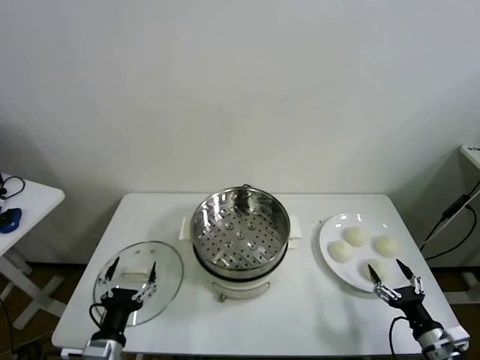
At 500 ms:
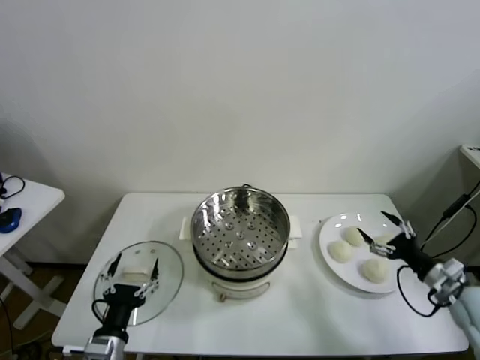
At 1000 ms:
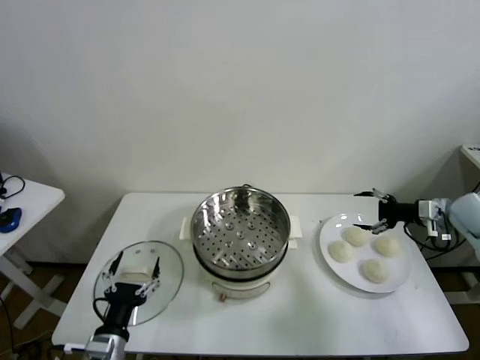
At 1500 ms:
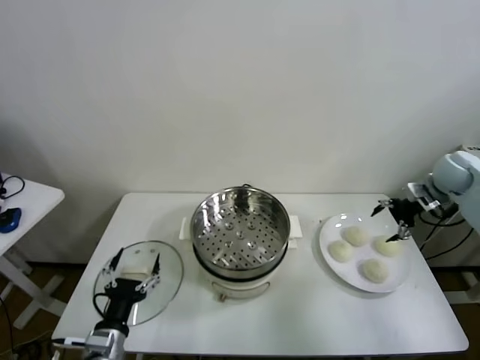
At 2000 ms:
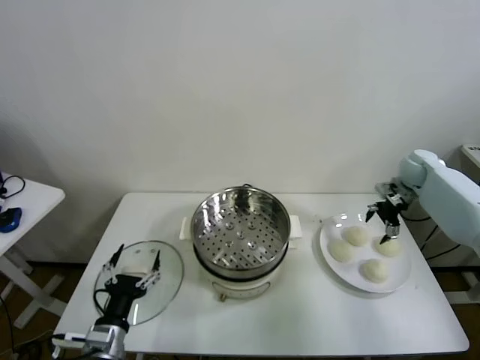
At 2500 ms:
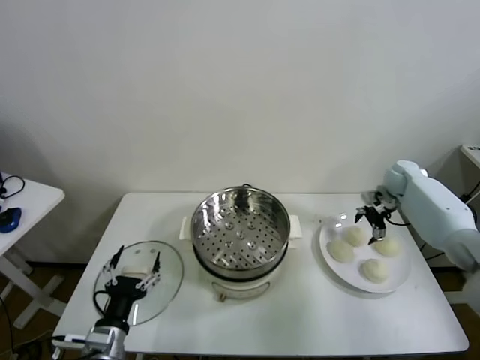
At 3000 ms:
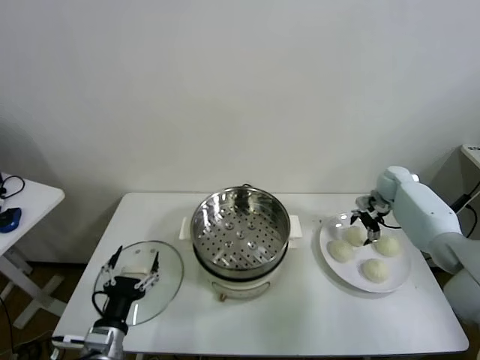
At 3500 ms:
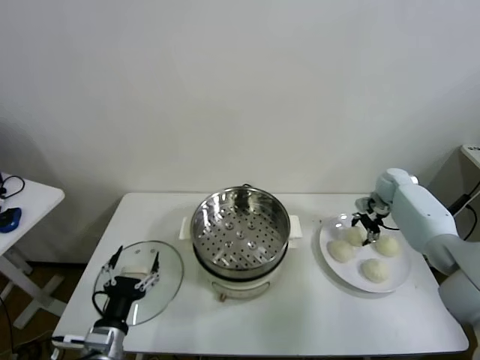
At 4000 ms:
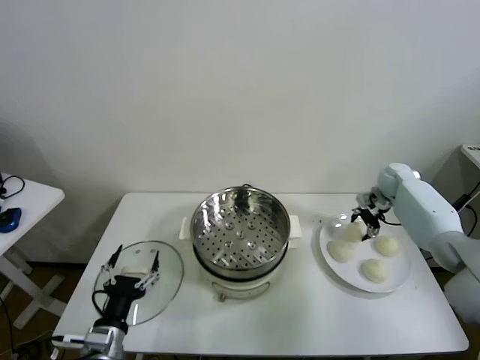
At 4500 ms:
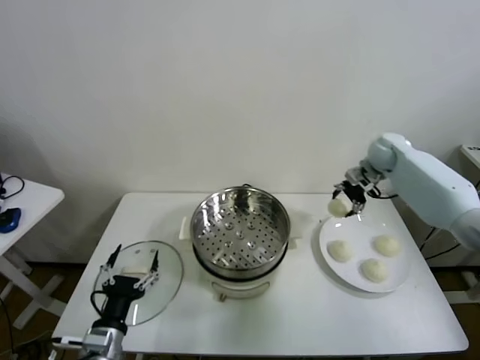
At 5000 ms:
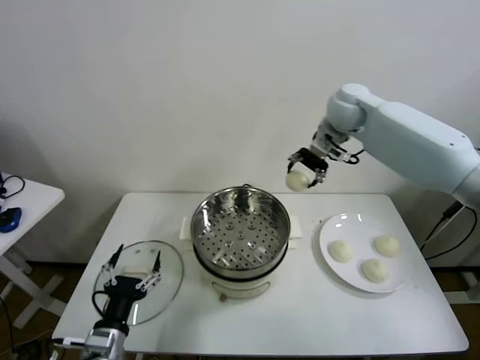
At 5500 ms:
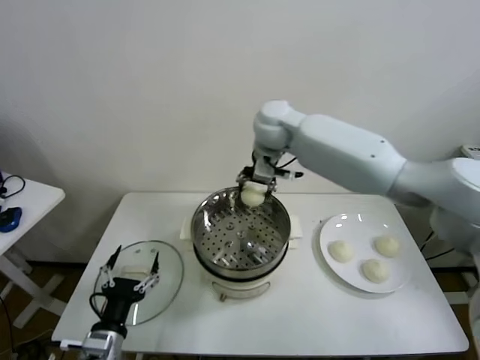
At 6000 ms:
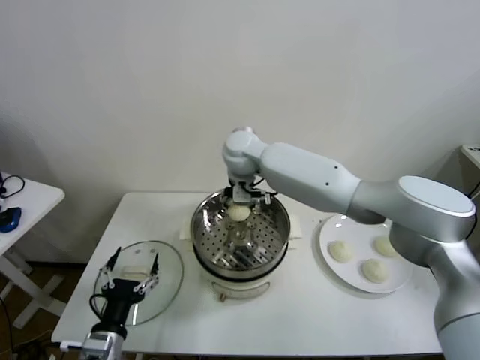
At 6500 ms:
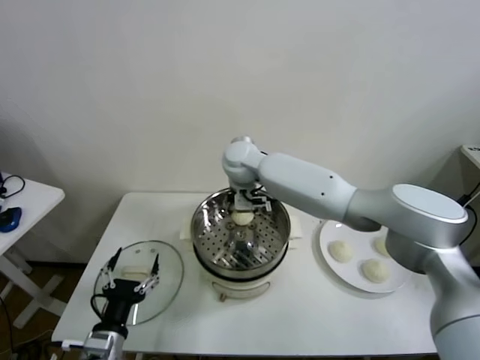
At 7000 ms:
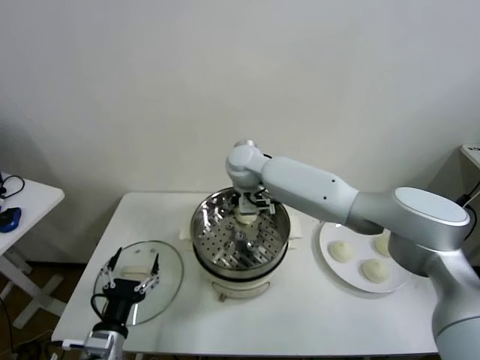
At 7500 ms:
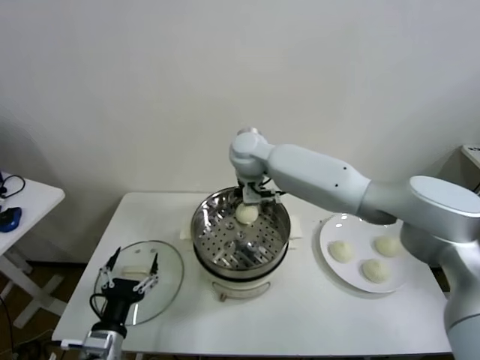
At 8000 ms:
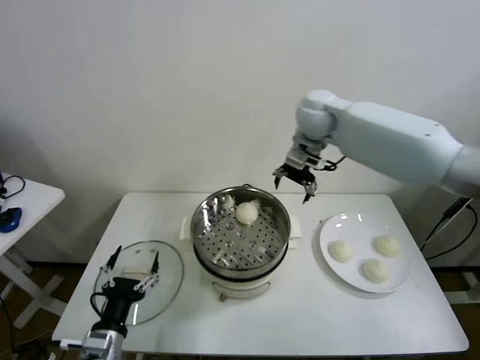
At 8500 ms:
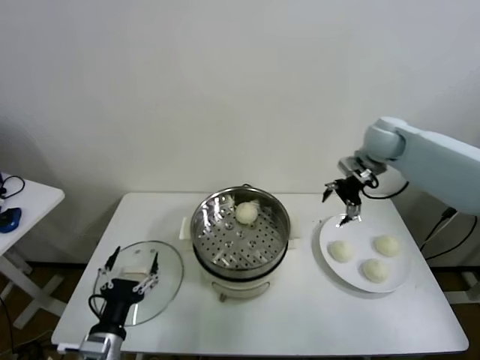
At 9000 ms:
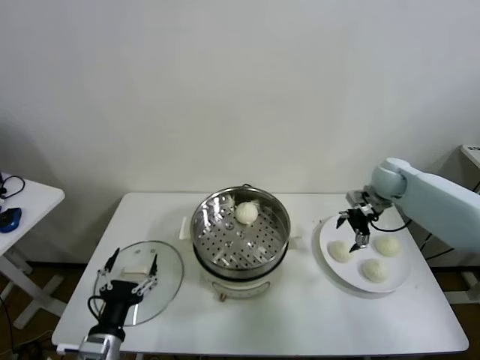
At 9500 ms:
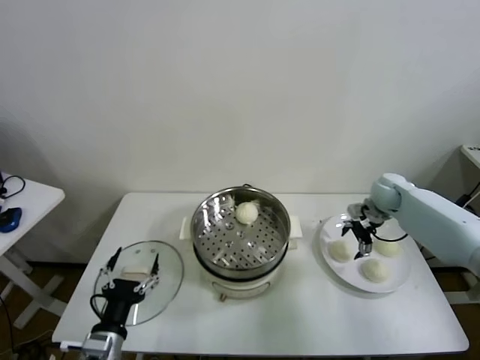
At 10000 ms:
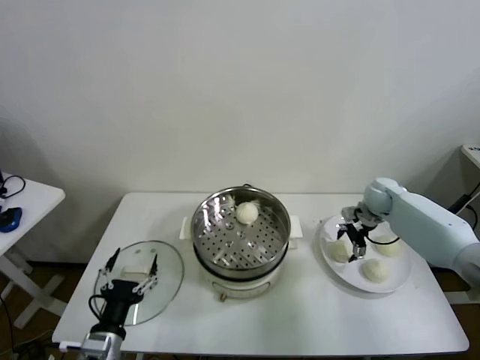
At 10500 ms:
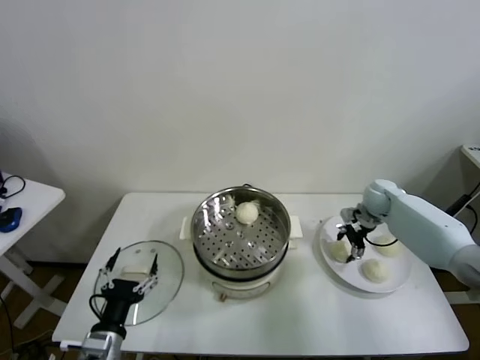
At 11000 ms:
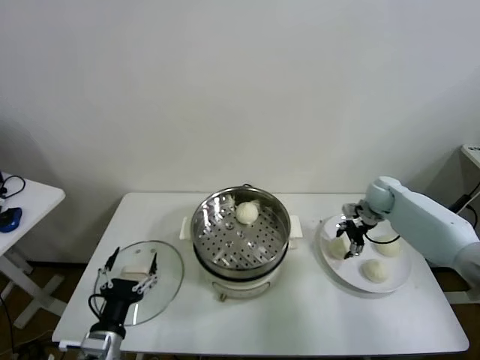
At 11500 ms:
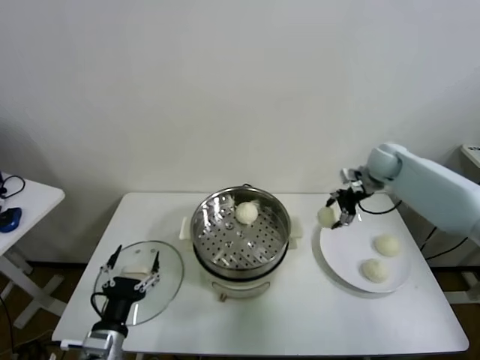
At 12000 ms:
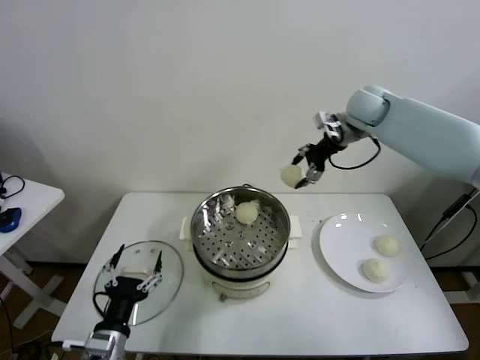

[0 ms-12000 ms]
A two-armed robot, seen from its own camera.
Task of the whole recording: take steamed baozi put them in steamer.
Step, 0 ms to 3500 ms: Grasp the baozi in the plate with right gripper.
Step, 4000 ms to 7000 ms: Place the baozi on the steamer with right gripper.
Step, 7500 ms to 10500 ms: Grasp the baozi in the plate with right gripper.
2000 ms to 4000 ms: The right gripper closes.
4000 ms to 6000 ms: The right gripper shifts some 40 cm to the left.
6000 ms to 8000 ms: The right gripper heads to the right and upward, covering about 20 cm, and opens its fingers.
8000 ms to 10000 ms: The right gripper heads downward and to the right, covering approximately 30 cm.
10000 ms to 12000 ms: The right gripper heads upward and to the left, covering roughly 30 cm, and closes.

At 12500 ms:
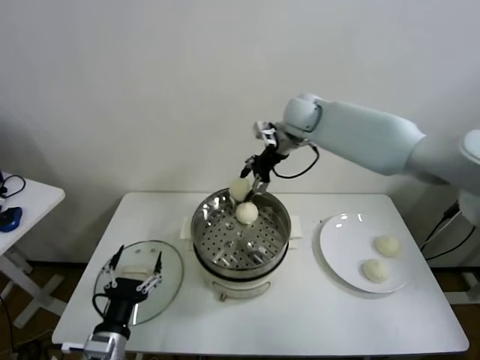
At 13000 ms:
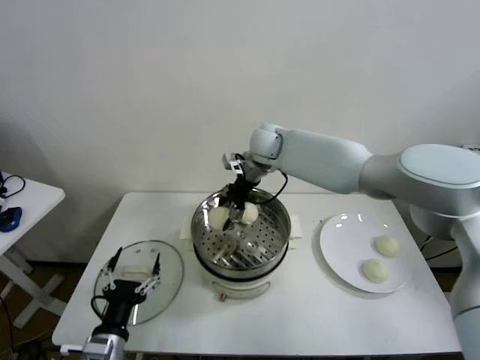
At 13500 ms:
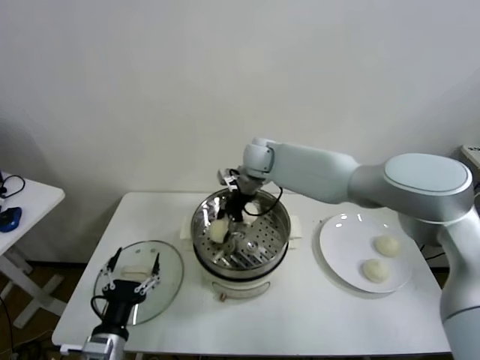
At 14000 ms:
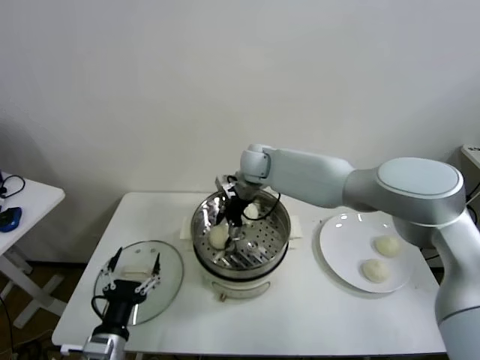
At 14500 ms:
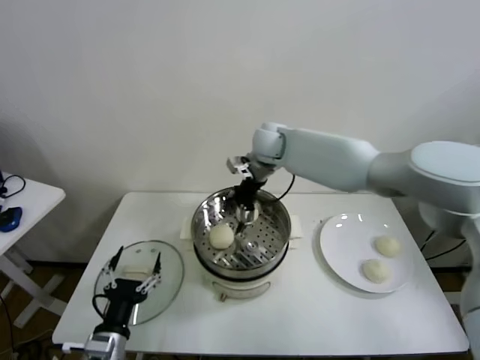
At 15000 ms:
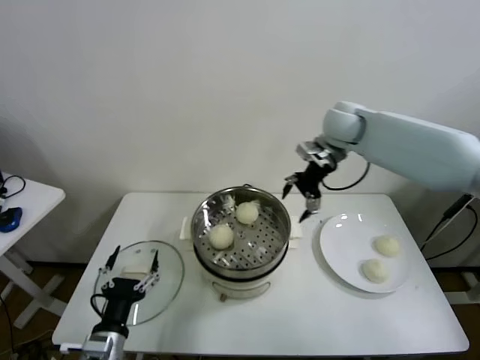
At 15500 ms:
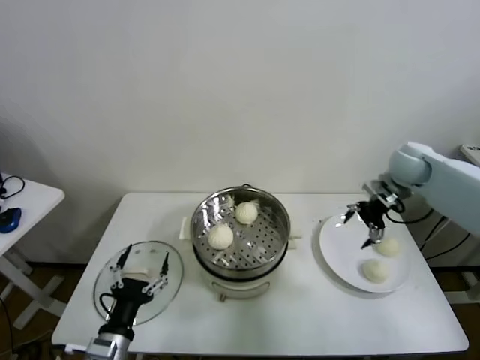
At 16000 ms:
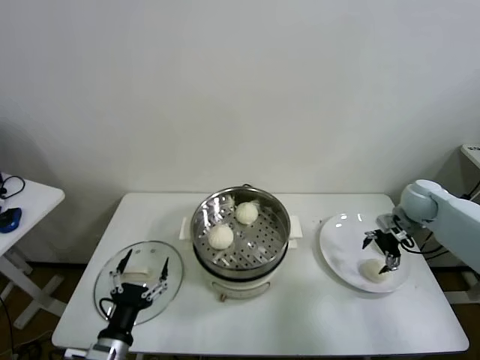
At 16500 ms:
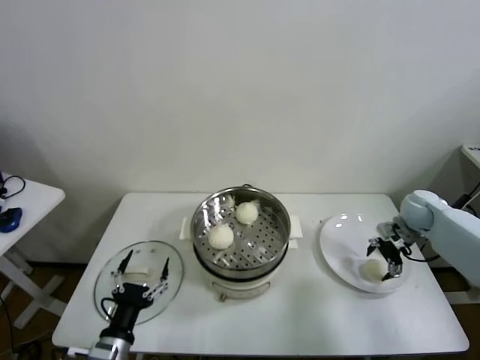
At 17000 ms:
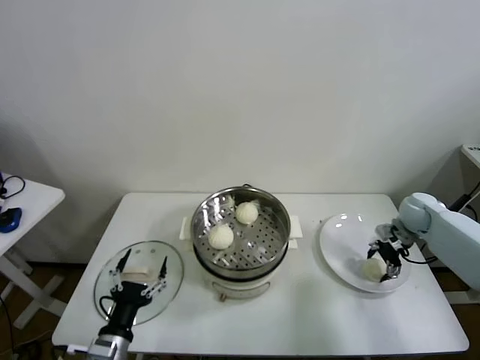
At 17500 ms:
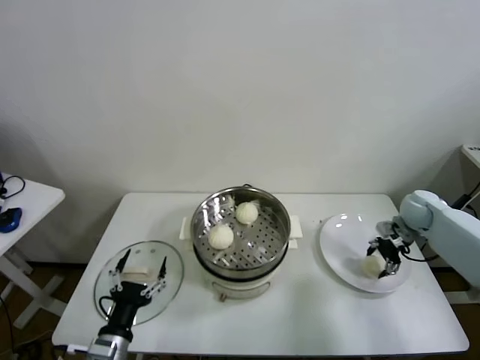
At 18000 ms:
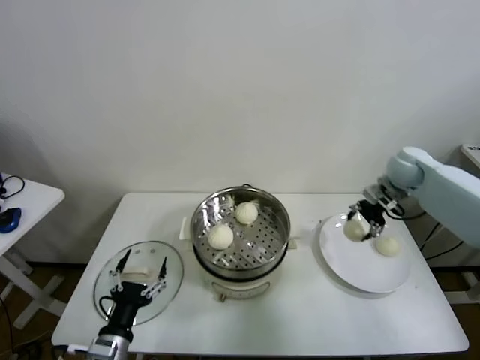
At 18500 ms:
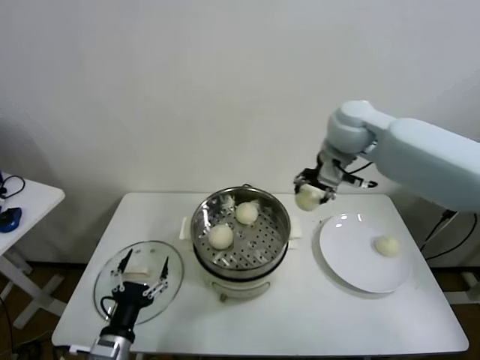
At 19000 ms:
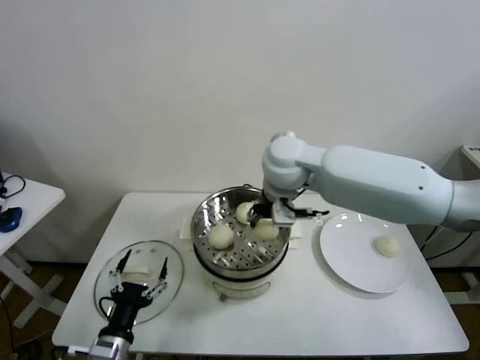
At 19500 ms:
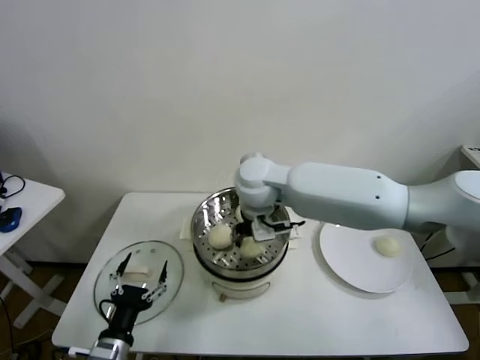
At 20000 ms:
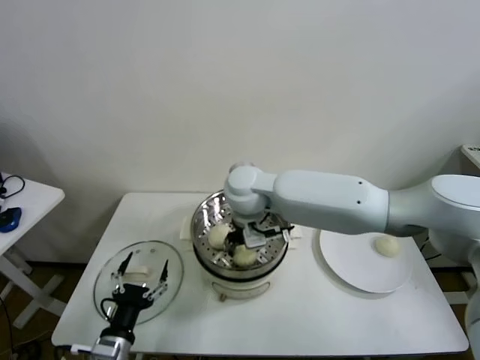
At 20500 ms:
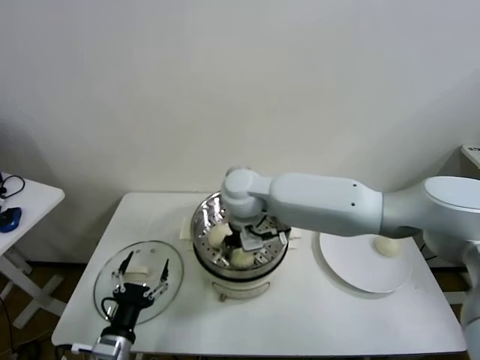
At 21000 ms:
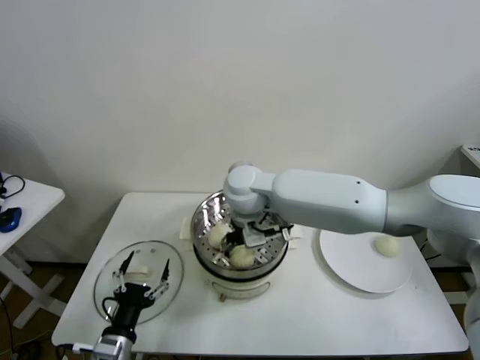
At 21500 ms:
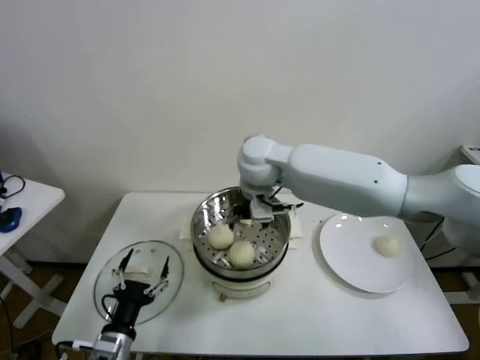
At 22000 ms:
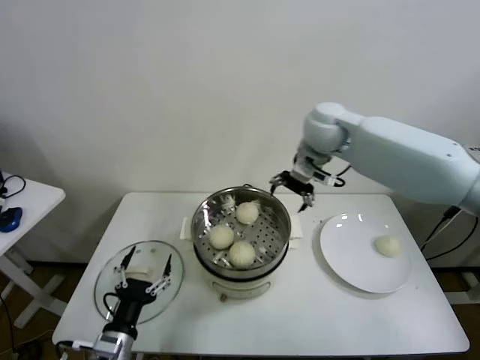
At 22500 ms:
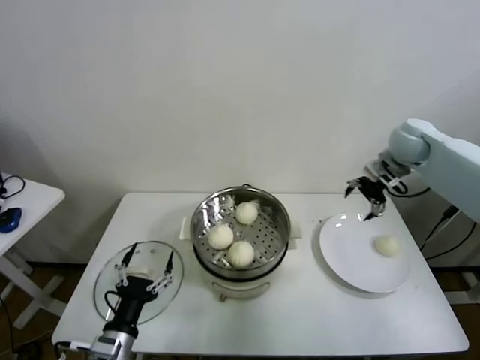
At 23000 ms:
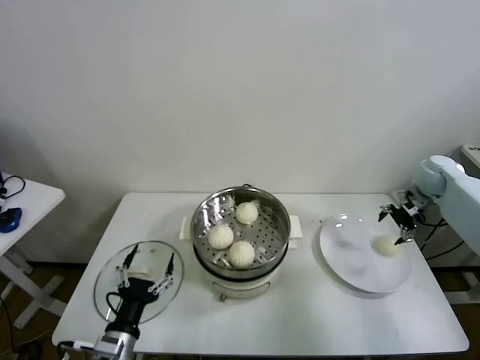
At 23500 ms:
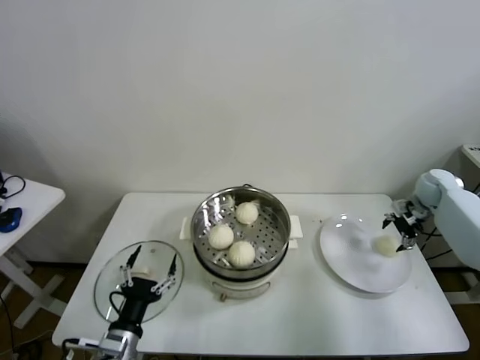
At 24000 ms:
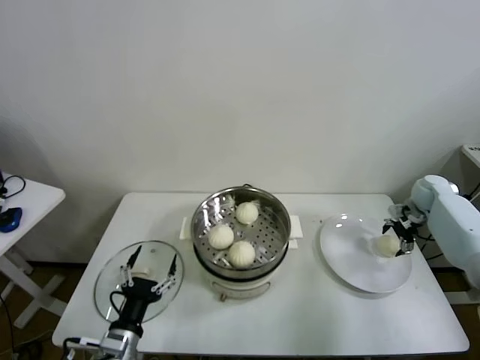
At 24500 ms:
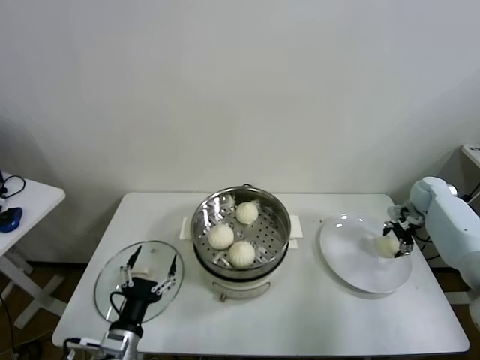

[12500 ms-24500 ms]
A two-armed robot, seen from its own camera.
Task of the whole recording: take steamed baozi put them in steamer.
Step, 14500 ms to 17000 ms: Grasp the baozi in the plate with right gripper.
Step, 17500 ms to 21000 ms: Place the baozi on the steamer with right gripper.
12500 ms to 14500 ms: The right gripper opens.
14500 ms to 16500 ms: The right gripper travels to the right and downward by roughly 40 cm.
16500 ms to 18500 ms: The right gripper shifts approximately 35 cm to the left and upward, and closes.
18500 ms to 20500 ms: The right gripper heads to the left and downward, covering some 25 cm.
20500 ms to 22500 ms: The right gripper travels to the right by about 40 cm, and opens up.
22500 ms to 24500 ms: The right gripper travels downward and to the right by approximately 20 cm, and closes up.

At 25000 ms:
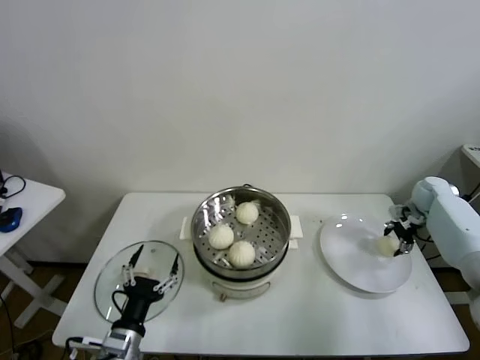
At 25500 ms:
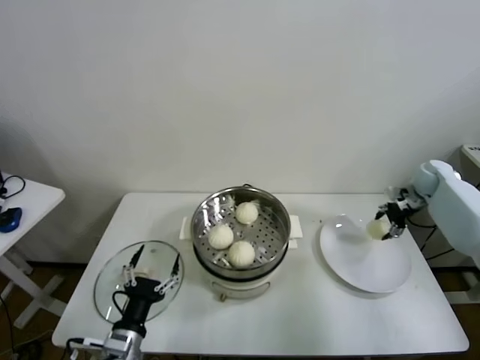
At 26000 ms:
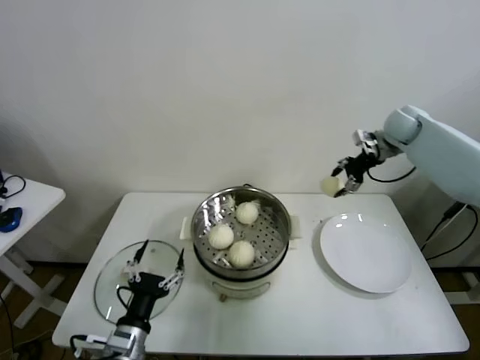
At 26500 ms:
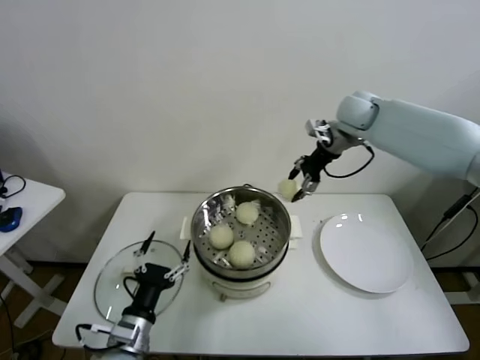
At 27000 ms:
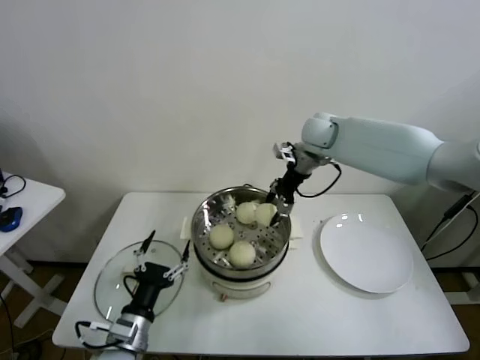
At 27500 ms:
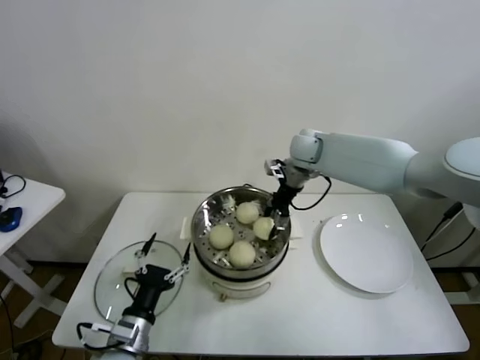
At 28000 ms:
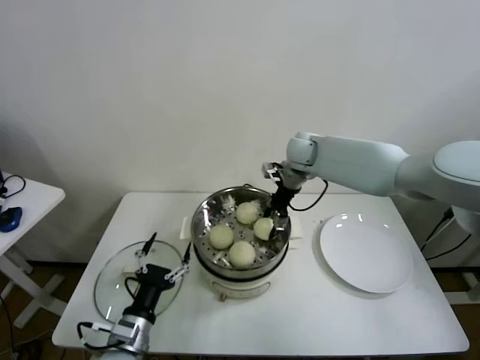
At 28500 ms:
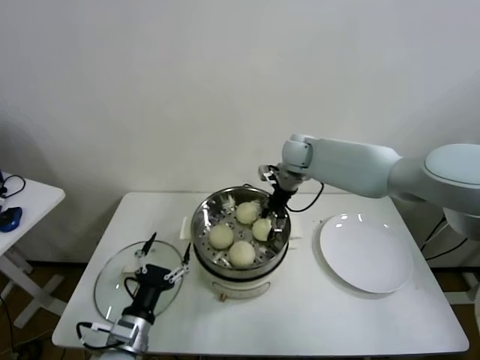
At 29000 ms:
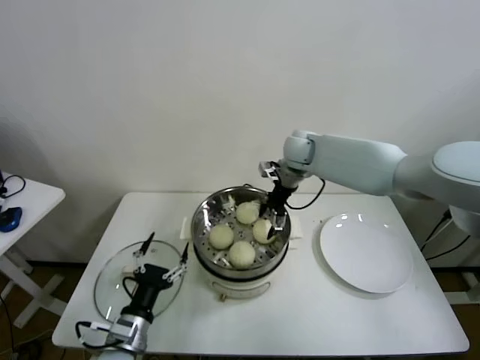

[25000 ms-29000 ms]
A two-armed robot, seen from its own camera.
Task of the whole recording: take steamed baozi put them in steamer.
Step, 25000 ms to 29000 ms: Place the baozi on the steamer with right gripper.
25000 ms to 27000 ms: The right gripper goes approximately 40 cm to the left and upward.
27000 ms to 29000 ms: The right gripper ends up roughly 5 cm from where it was, and opens its fingers.
